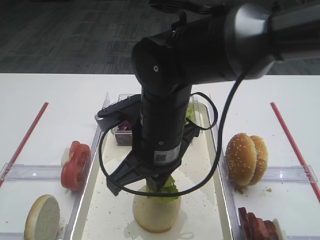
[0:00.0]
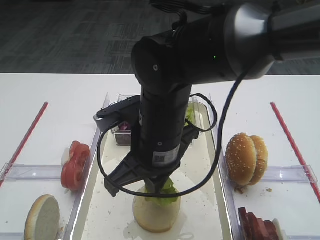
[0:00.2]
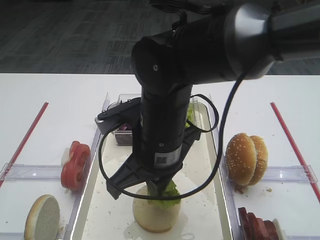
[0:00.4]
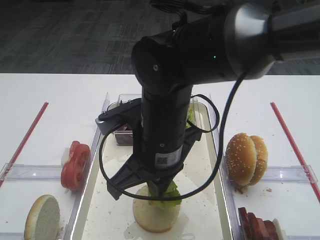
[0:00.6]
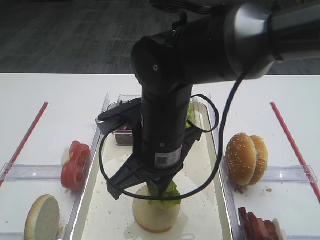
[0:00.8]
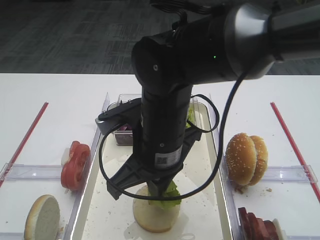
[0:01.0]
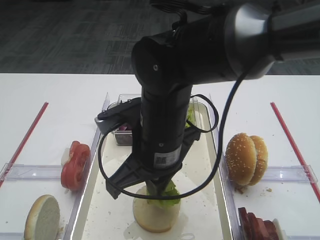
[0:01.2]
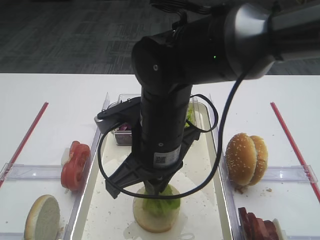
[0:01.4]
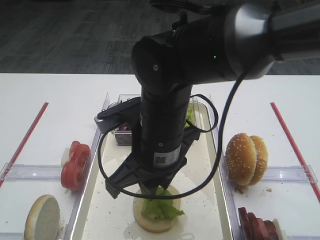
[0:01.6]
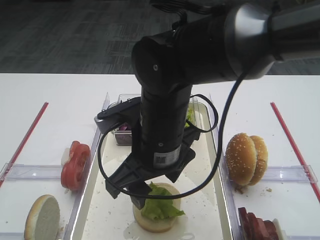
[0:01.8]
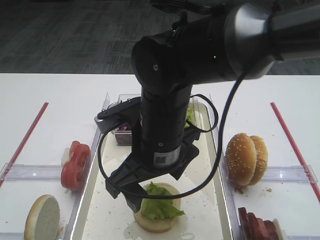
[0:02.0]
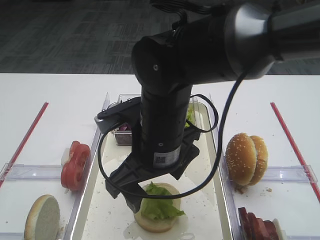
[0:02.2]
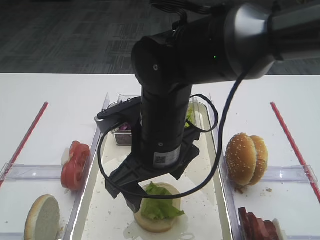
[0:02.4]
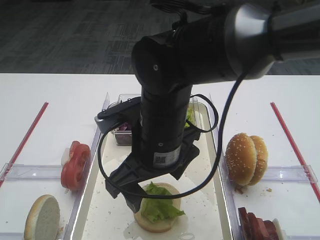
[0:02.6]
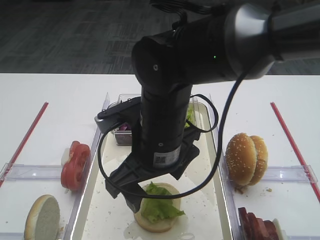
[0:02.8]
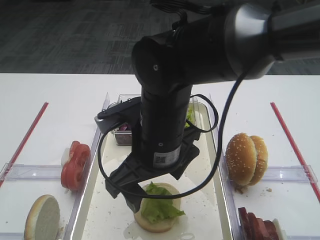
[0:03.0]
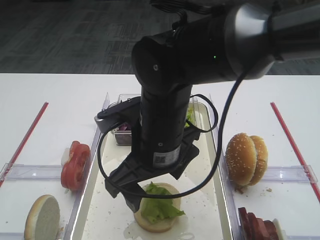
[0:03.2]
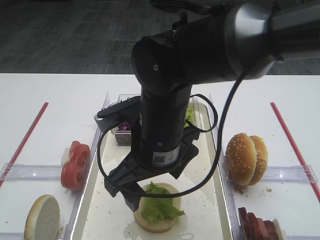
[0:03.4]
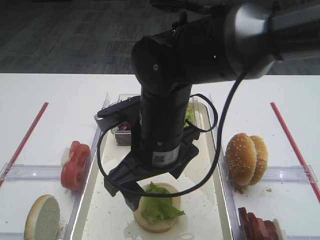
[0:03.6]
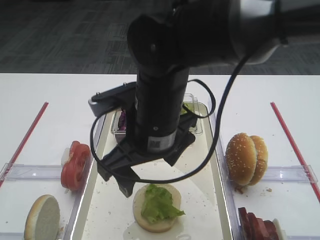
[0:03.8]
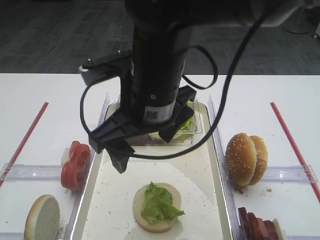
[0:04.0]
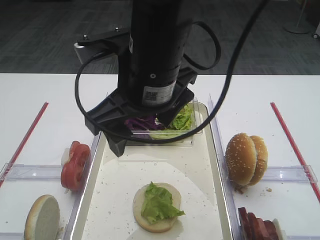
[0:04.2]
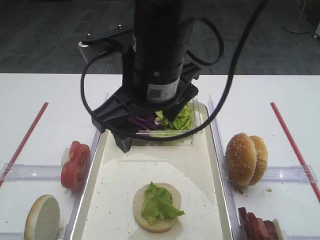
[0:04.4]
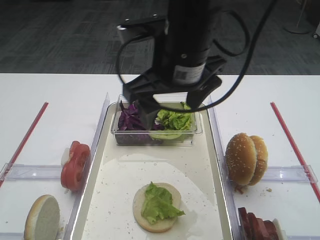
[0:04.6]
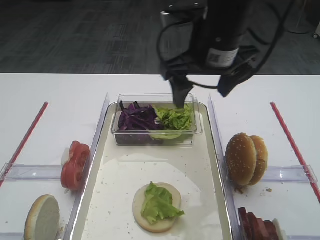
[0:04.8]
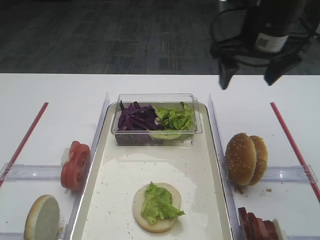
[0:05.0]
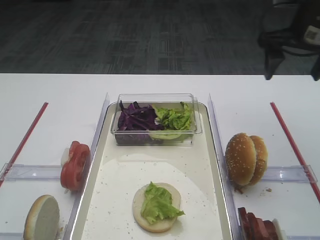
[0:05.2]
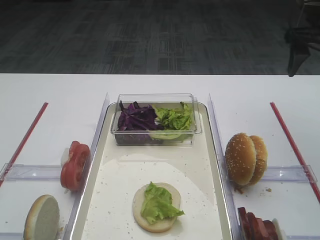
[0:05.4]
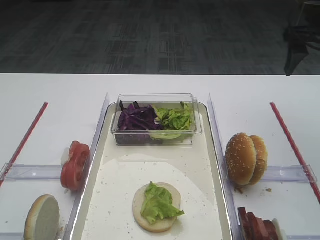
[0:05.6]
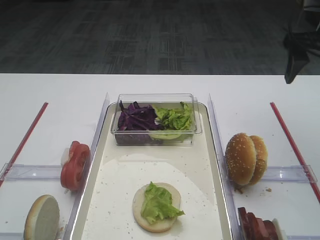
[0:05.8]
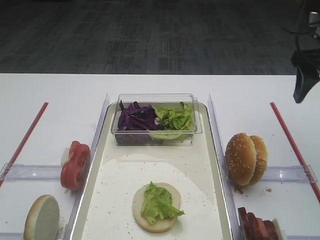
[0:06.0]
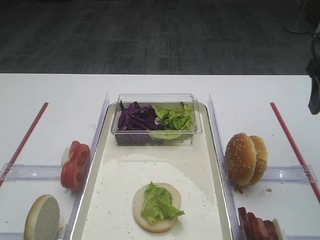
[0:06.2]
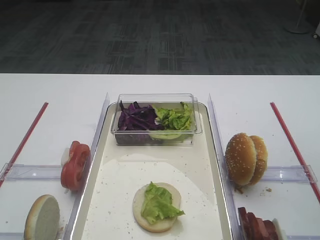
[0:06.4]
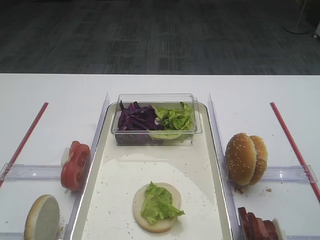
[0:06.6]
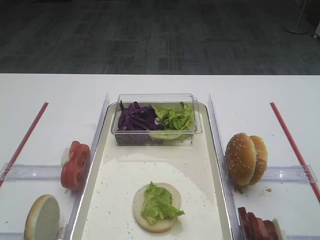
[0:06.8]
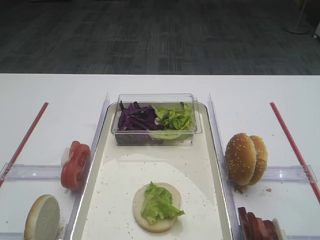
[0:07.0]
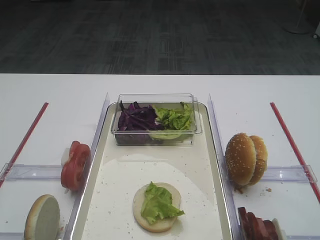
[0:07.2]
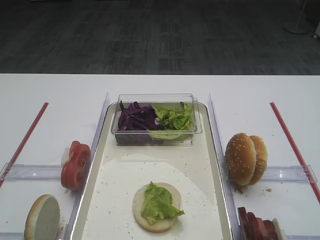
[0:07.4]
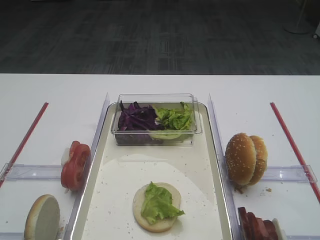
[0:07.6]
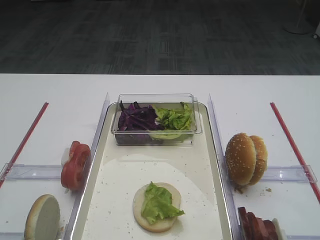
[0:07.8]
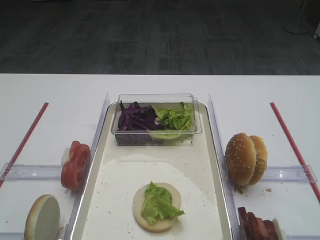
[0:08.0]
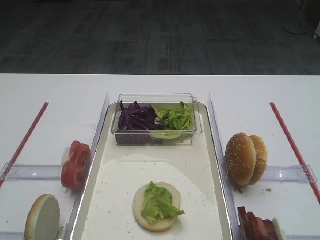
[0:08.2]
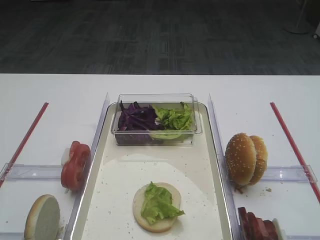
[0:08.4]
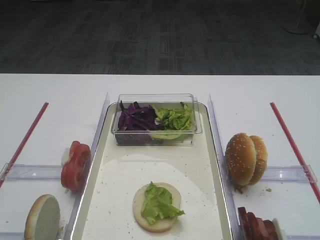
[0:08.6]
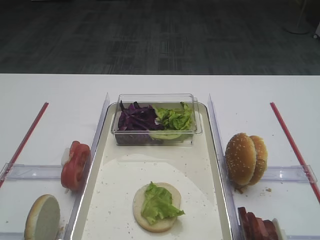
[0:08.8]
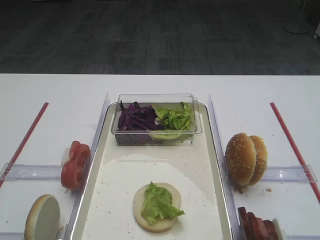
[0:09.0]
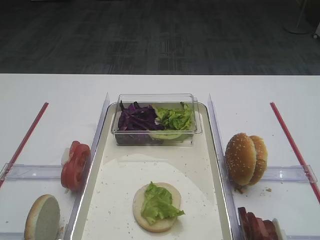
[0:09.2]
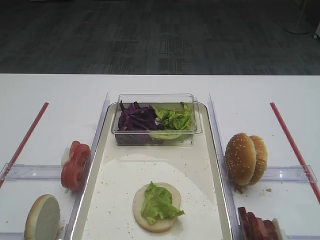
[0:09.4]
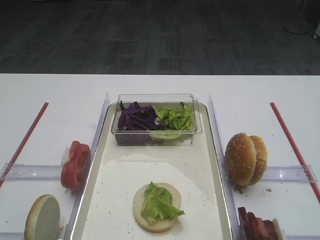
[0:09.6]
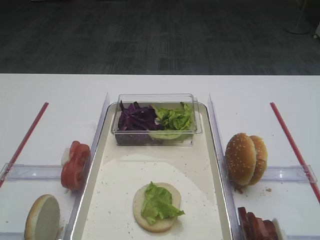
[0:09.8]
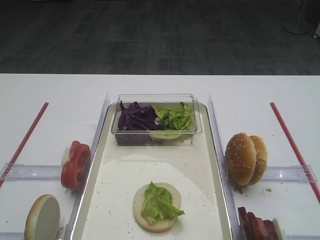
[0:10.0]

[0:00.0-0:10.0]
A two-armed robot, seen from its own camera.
Step, 0:00.0 to 0:03.8: Place the lettuce leaf on the bread slice with the right gripper.
0:00.0 to 0:01.4: Both grippers stay put.
0:01.4 to 0:02.8: The right gripper opens up.
0:02.8 to 0:04.2: The right gripper heads upward, covering some 10 cm.
0:04.2 to 0:05.8: The right gripper moves to the right and forward, roughly 30 cm.
0:05.8 to 0:07.2: The right gripper moves backward, some 30 cm.
0:08.6 to 0:10.0: Neither gripper changes place.

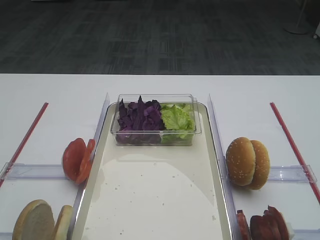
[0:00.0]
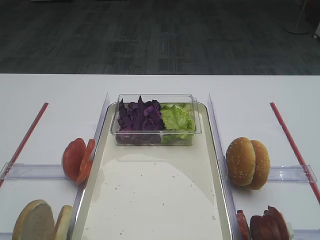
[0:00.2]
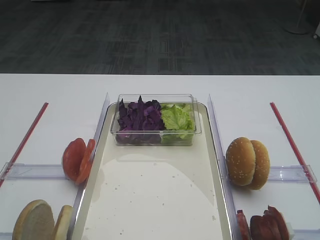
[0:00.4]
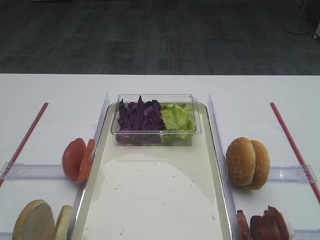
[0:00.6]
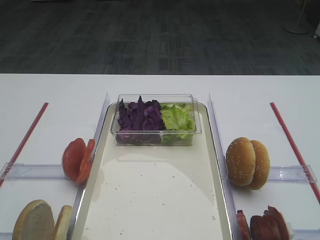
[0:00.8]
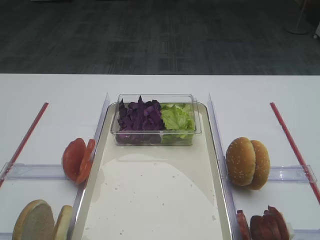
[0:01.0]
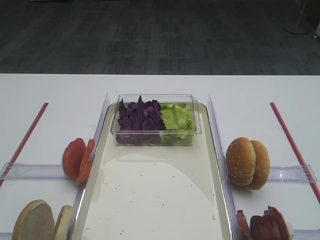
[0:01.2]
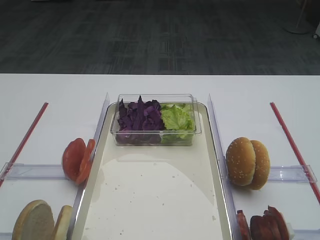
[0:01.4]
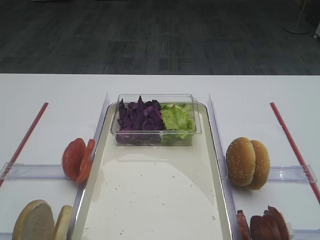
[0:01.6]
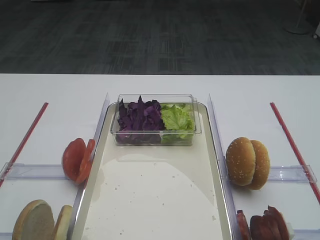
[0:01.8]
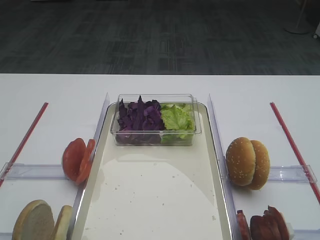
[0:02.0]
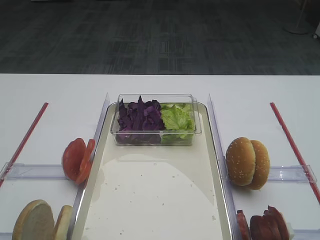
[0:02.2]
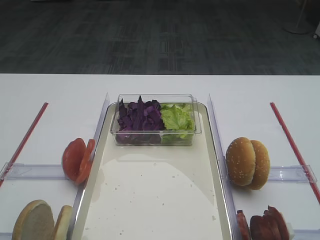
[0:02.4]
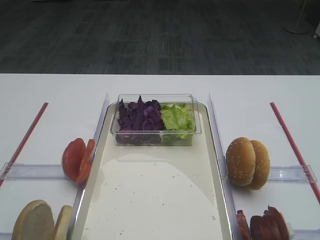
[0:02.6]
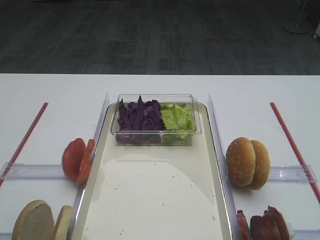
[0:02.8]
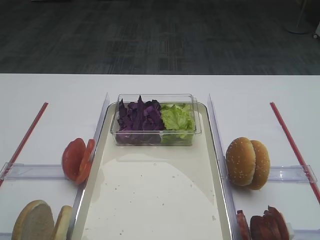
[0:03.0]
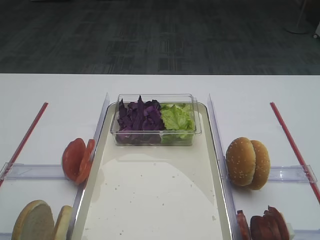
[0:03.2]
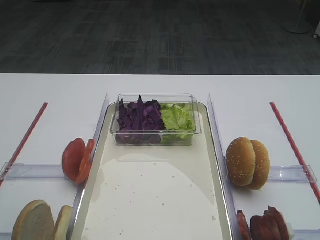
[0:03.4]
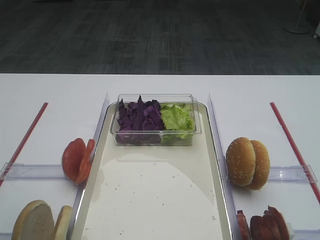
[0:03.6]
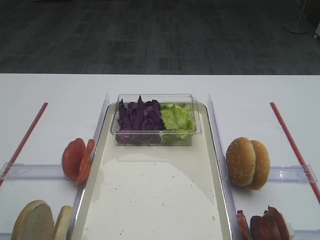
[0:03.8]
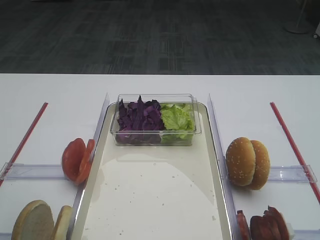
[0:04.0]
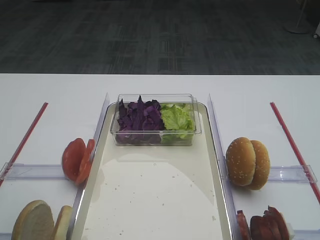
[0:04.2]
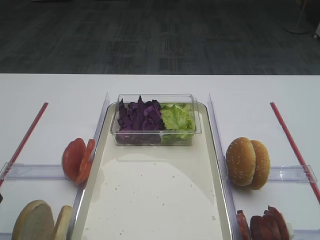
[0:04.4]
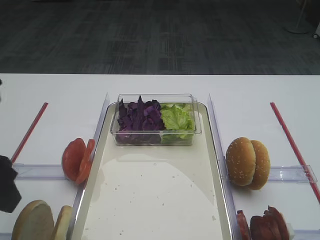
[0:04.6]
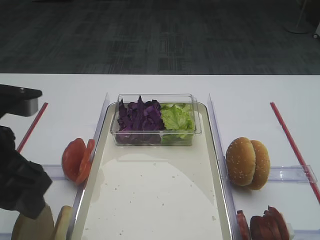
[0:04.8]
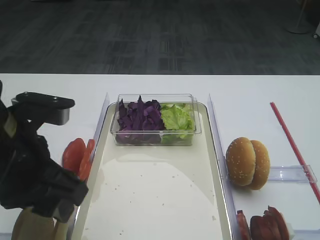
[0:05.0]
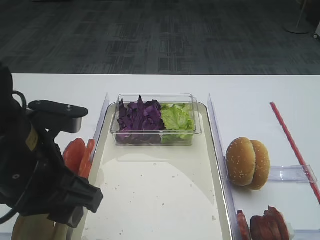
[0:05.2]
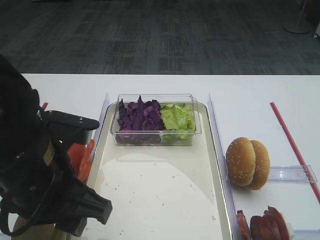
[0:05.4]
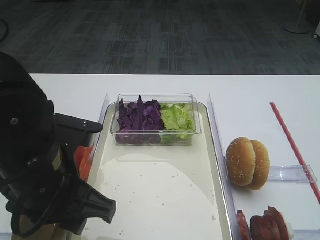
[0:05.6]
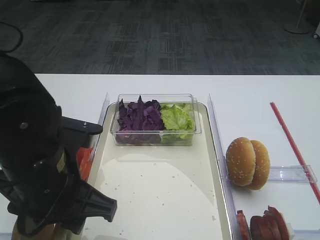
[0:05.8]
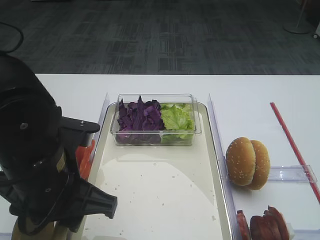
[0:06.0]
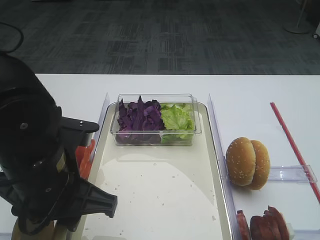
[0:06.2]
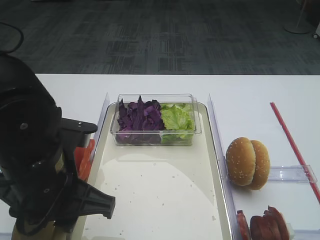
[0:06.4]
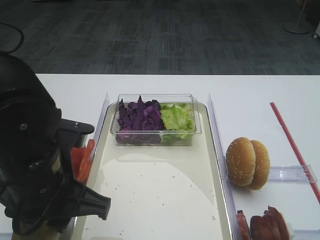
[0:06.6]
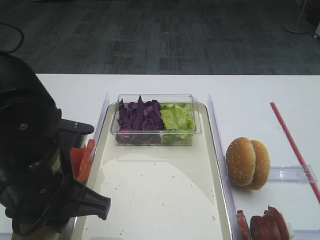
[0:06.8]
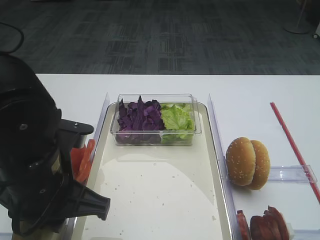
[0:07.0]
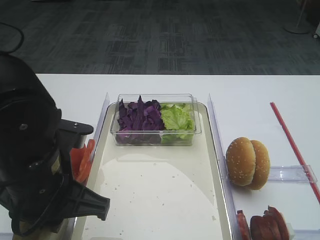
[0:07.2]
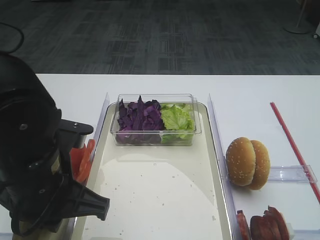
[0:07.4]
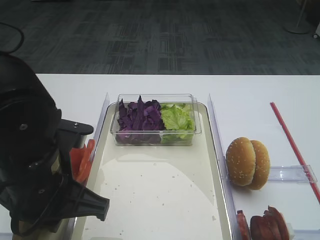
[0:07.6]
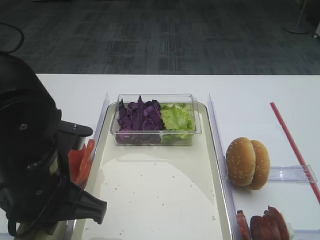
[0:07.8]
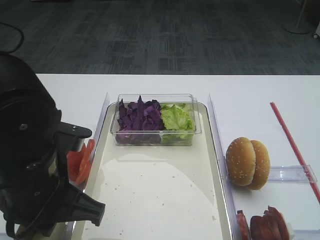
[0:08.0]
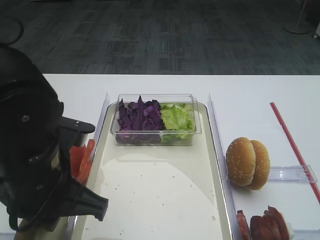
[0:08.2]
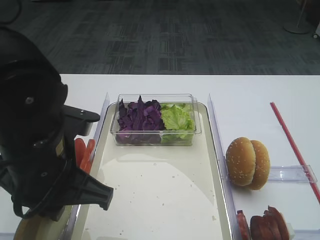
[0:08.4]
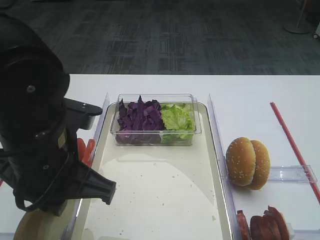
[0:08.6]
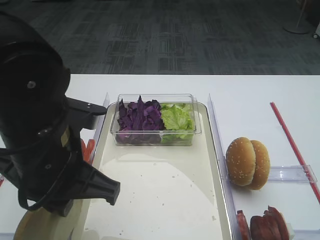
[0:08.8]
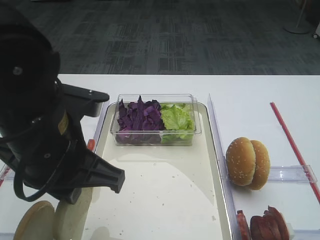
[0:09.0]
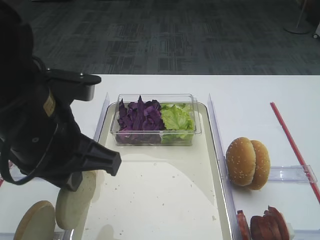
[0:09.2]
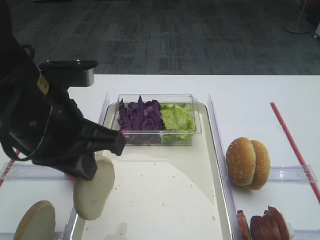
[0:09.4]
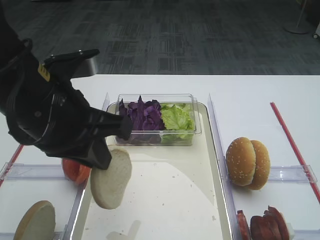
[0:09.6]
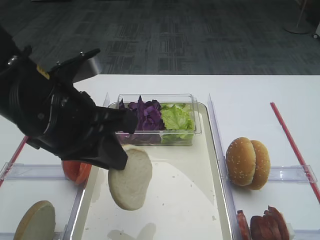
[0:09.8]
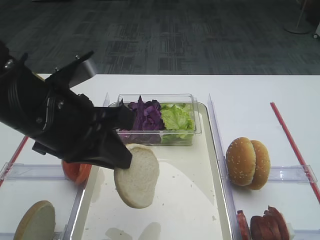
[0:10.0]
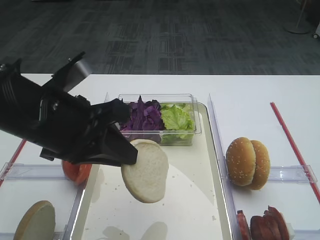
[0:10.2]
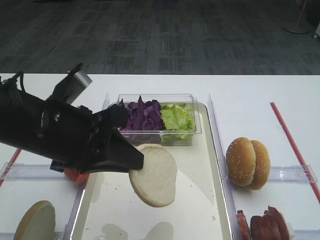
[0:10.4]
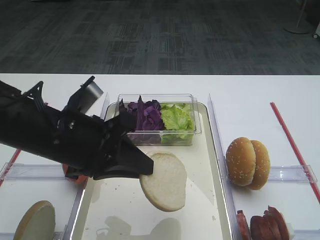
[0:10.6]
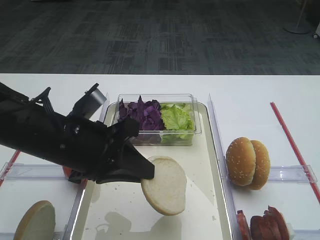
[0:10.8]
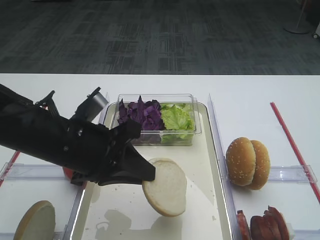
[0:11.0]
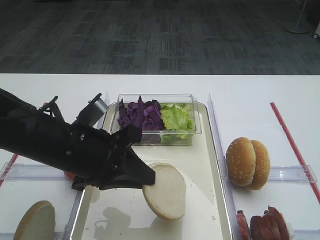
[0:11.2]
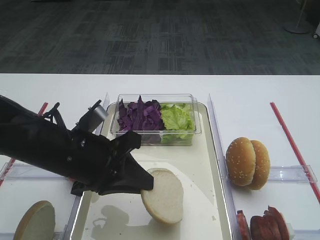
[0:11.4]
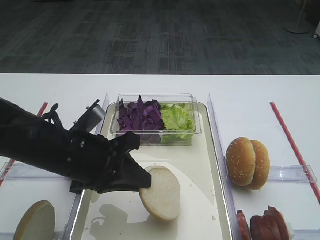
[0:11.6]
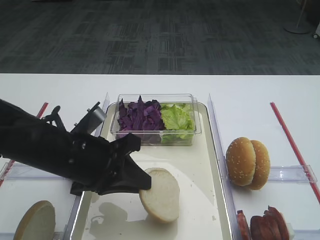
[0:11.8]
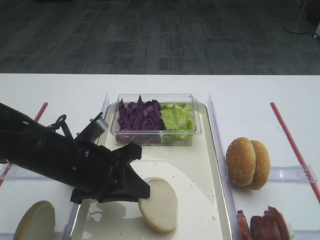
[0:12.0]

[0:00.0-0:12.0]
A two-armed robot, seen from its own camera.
Step, 0:00.0 to 0:08.6: Pick up the bread slice with the left gripper.
0:04.4 to 0:06.0: The left gripper shifts roughly 15 cm to the right and downward.
0:06.0 to 0:07.6: The left gripper closes.
0:07.6 to 0:09.0: The left gripper changes place by some 5 cm.
0:10.4 to 0:12.0: The left gripper goes approximately 10 cm downward.
